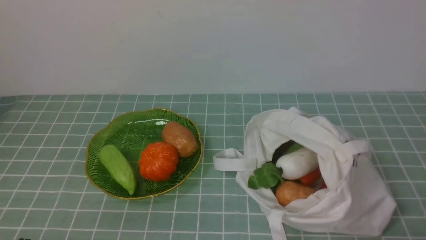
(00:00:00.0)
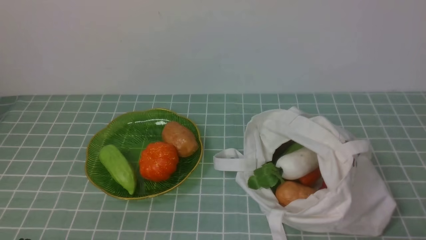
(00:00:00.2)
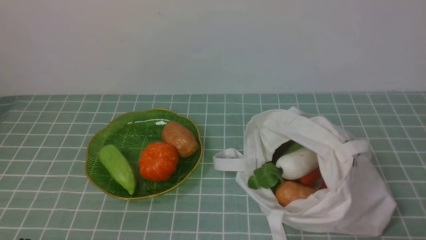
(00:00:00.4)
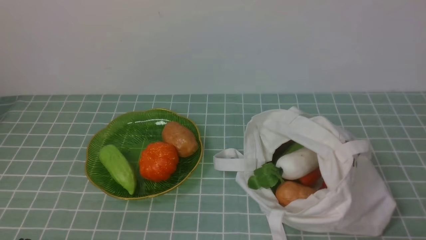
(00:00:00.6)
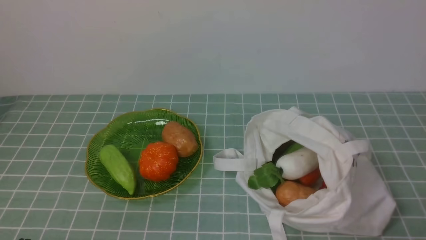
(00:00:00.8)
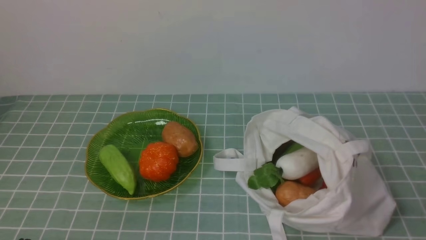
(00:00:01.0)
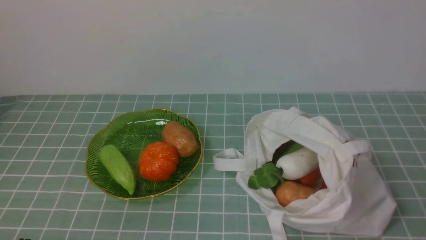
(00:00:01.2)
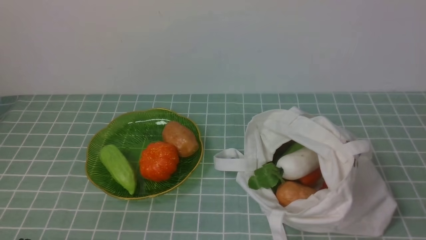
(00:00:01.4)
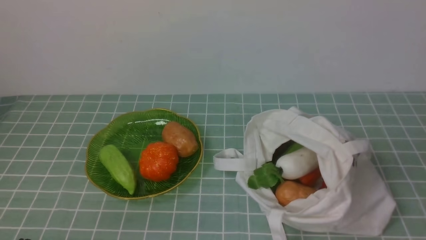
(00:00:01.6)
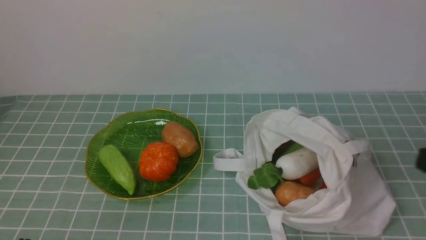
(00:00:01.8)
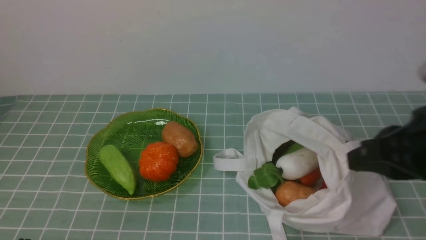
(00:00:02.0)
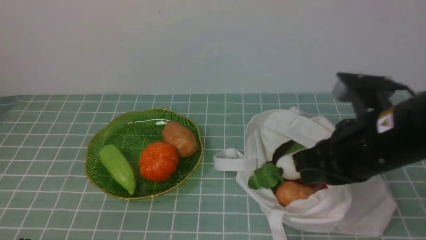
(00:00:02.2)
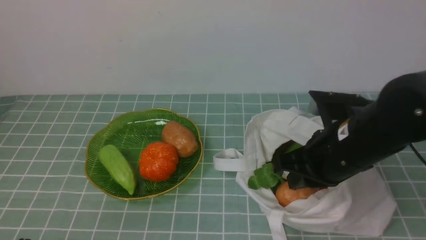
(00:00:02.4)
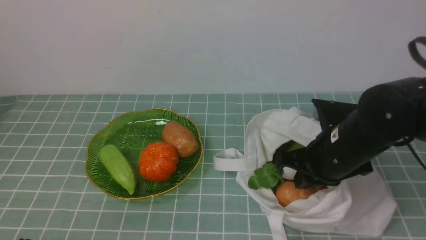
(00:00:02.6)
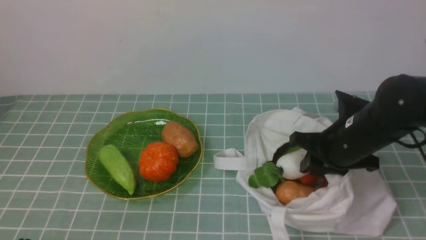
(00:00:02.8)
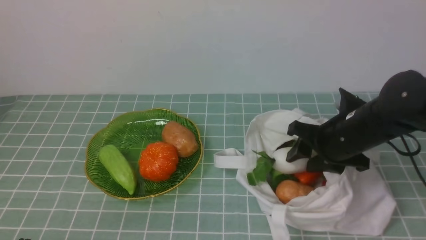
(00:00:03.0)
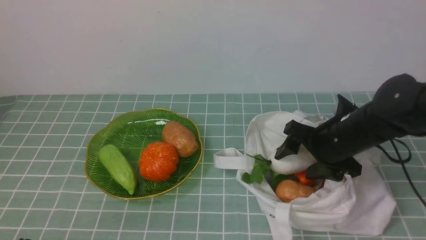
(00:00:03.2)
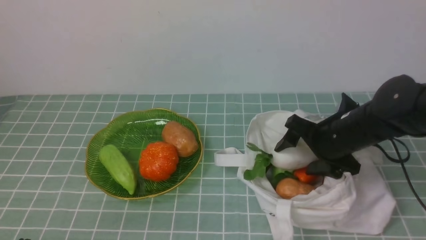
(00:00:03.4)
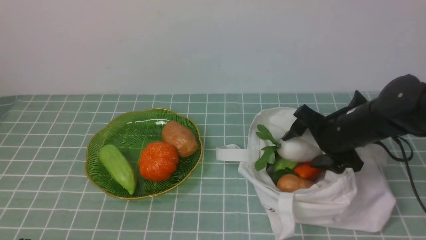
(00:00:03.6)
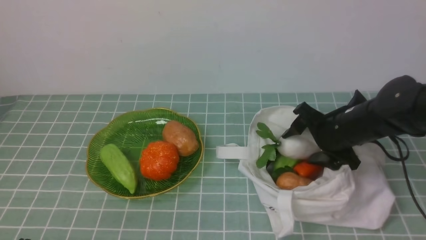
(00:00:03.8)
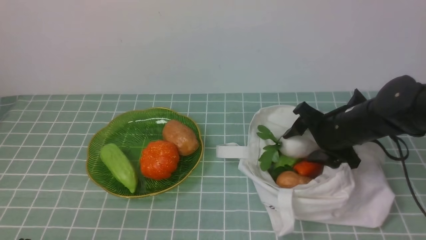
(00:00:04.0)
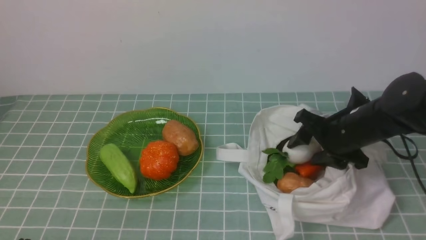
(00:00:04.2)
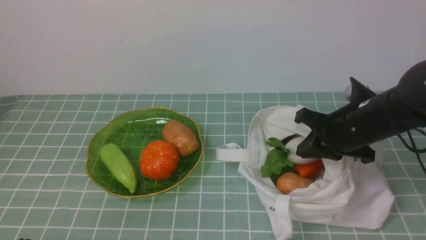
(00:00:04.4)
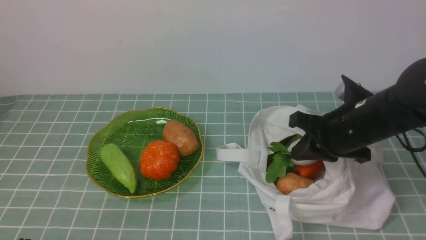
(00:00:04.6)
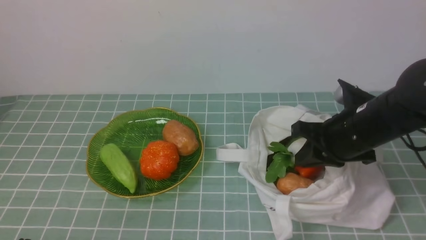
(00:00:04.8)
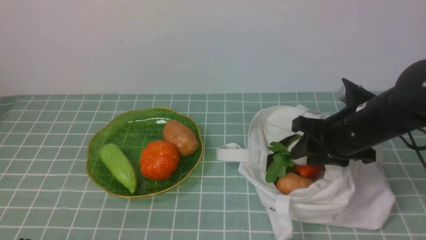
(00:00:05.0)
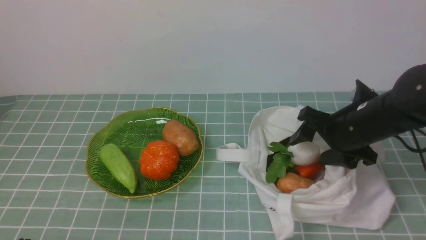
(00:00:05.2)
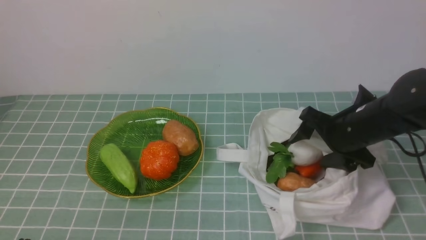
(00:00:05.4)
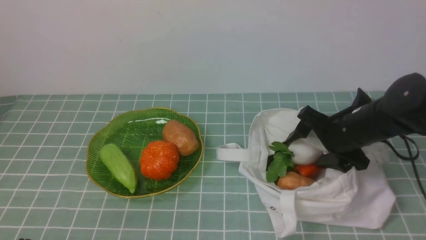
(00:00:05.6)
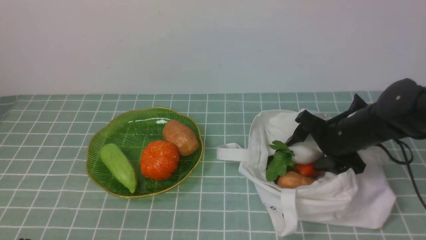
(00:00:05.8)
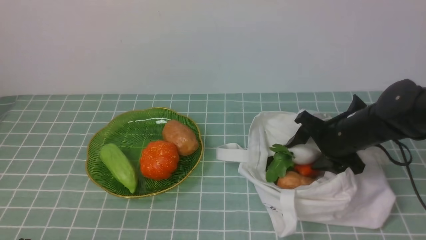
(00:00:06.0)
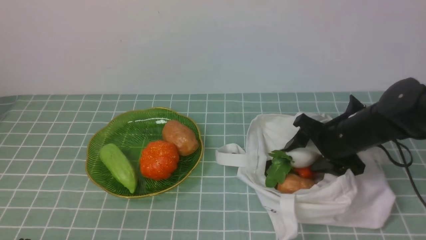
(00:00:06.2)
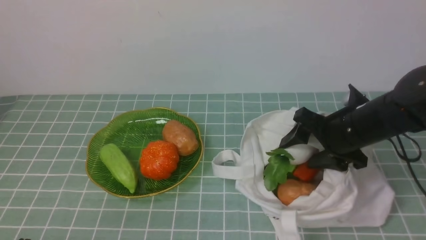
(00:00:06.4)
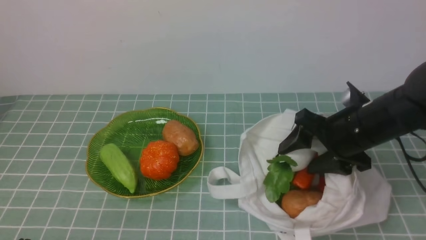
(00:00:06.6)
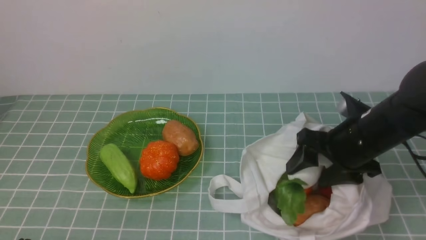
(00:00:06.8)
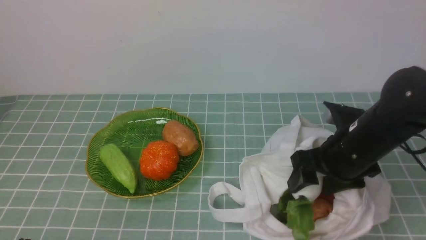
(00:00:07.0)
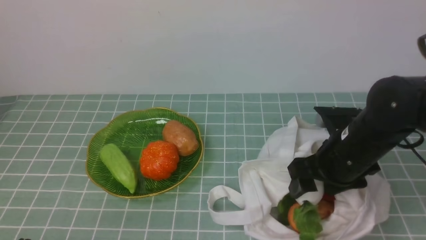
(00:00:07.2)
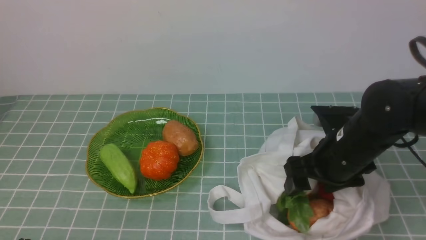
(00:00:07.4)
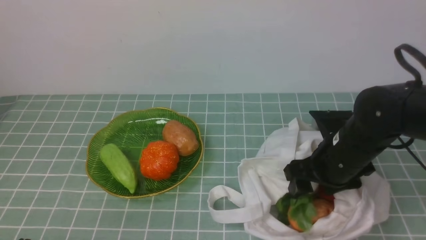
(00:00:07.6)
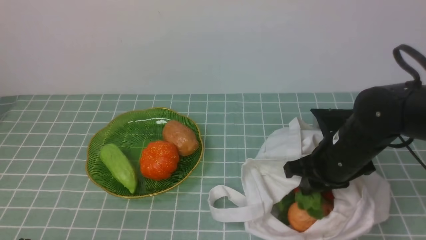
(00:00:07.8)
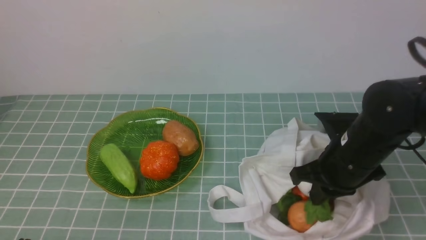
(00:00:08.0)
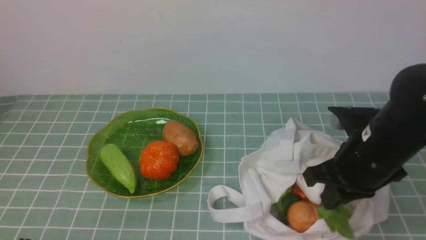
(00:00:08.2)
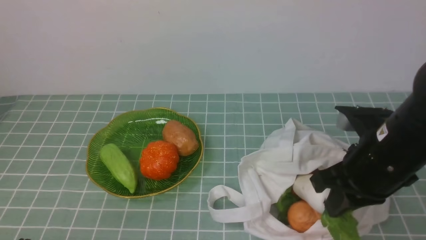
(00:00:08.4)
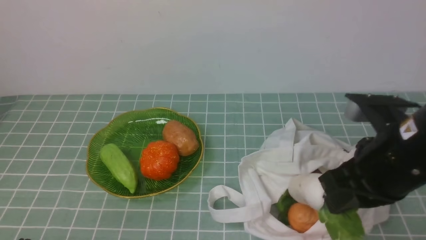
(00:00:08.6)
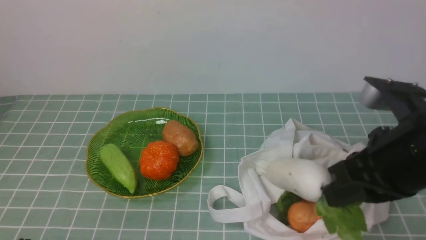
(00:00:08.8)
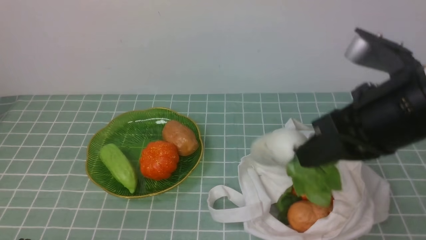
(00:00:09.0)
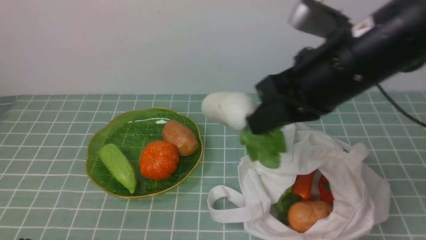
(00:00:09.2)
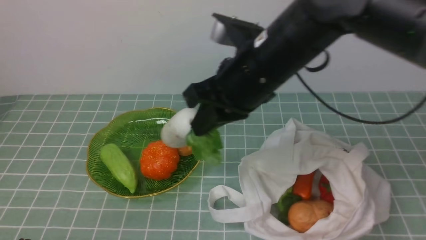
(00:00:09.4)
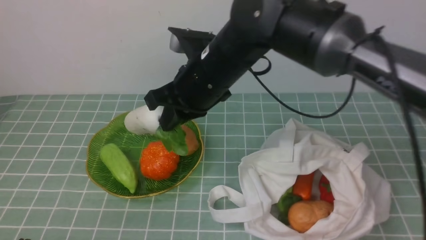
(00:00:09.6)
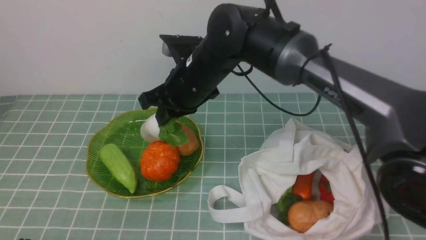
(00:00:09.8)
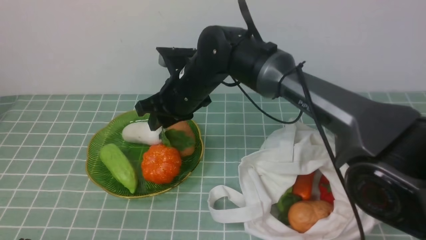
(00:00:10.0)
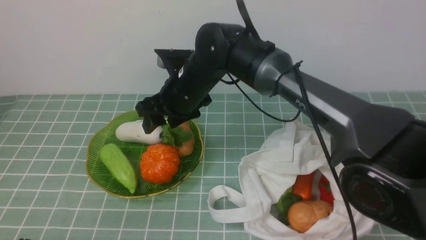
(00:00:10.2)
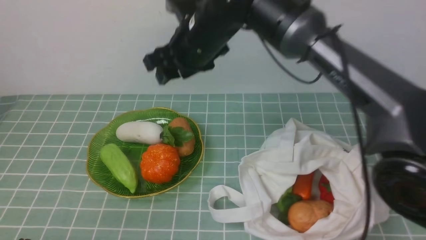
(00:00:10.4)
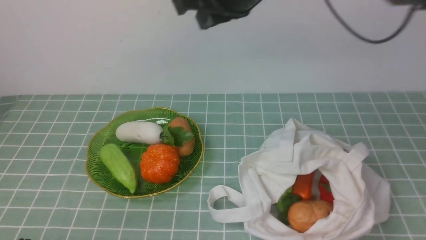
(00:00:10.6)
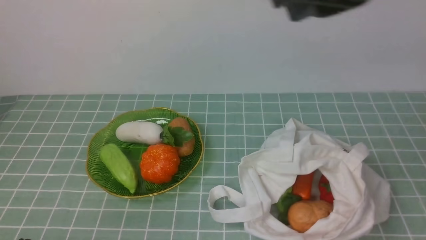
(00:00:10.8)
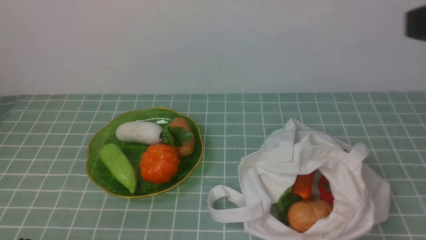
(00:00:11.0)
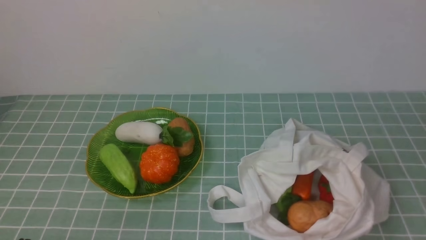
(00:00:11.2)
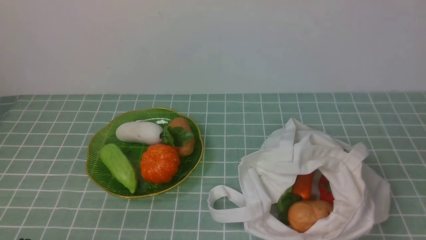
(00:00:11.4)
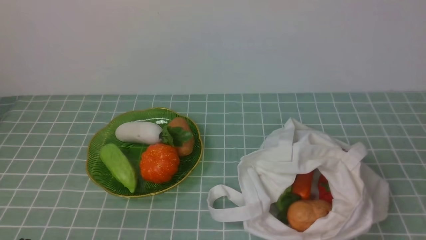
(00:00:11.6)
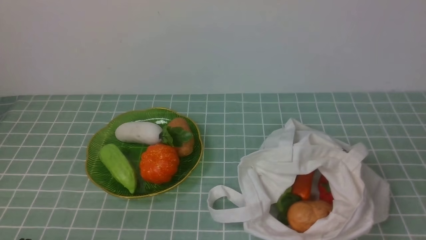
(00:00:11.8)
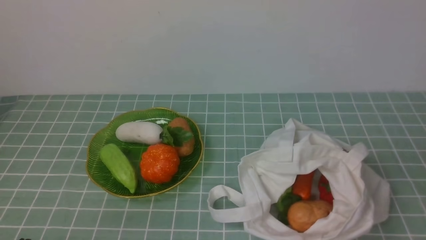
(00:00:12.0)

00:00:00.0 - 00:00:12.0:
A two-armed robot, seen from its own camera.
Task of the whole recording: take vegetables from cloth bag on blue coffee tablecloth place on plate.
Step, 00:00:00.0 - 00:00:06.8: Grasp the radish with right gripper.
Step, 00:00:07.0 - 00:00:10.2: Place the radish on the plate with right gripper.
00:00:01.6 - 00:00:03.0: The right gripper travels forward and downward by approximately 25 cm, and opens.
00:00:03.0 - 00:00:04.4: The right gripper closes up.
00:00:04.4 - 00:00:06.0: The right gripper changes place by some 5 cm, and opens.
00:00:06.0 - 00:00:07.6: The right gripper heads backward, covering about 5 cm.
00:00:07.6 - 00:00:09.0: The right gripper heads upward and backward, covering some 20 cm, and closes.
00:00:09.0 - 00:00:10.4: The right gripper shifts roughly 25 cm forward and to the left, and opens.
00:00:10.4 - 00:00:12.0: The right gripper is displaced backward and to the right by some 50 cm, and closes its fingers.

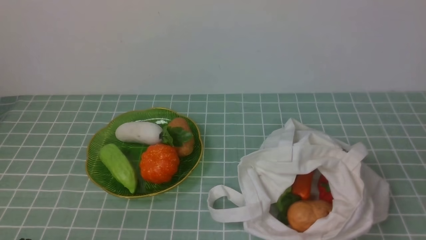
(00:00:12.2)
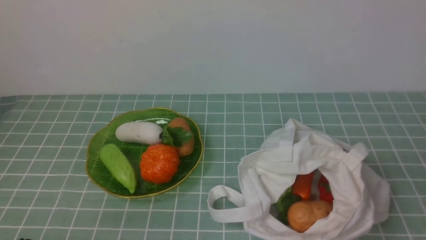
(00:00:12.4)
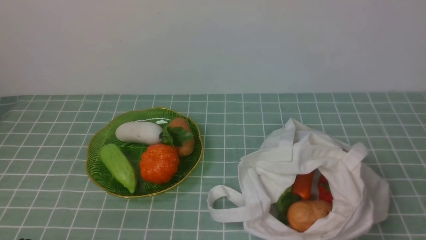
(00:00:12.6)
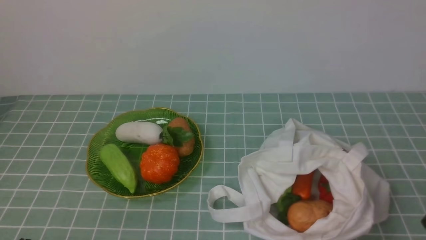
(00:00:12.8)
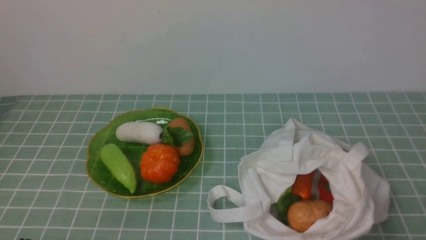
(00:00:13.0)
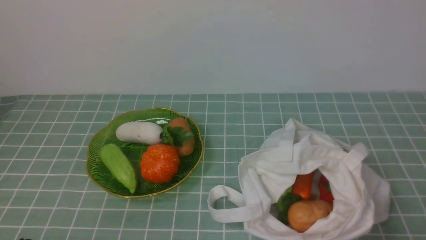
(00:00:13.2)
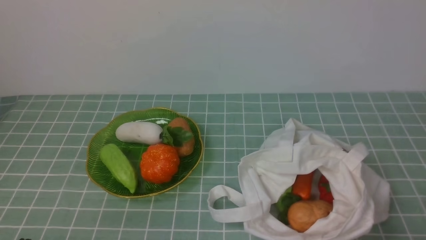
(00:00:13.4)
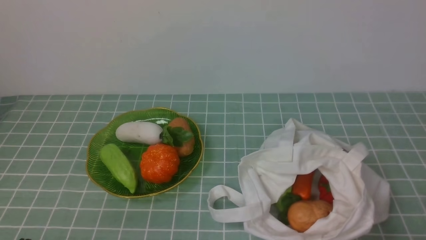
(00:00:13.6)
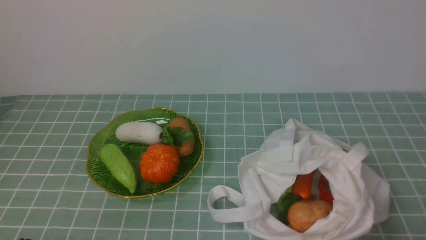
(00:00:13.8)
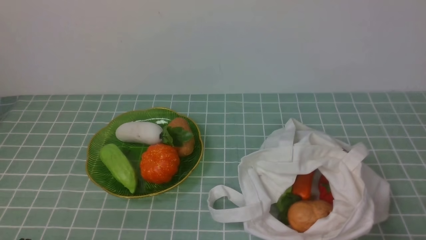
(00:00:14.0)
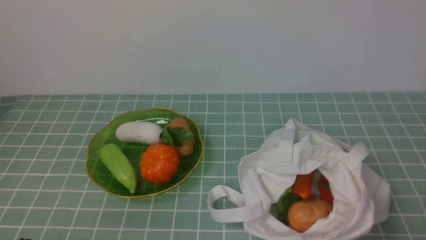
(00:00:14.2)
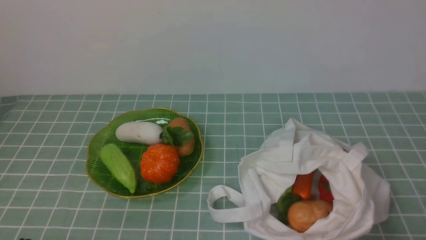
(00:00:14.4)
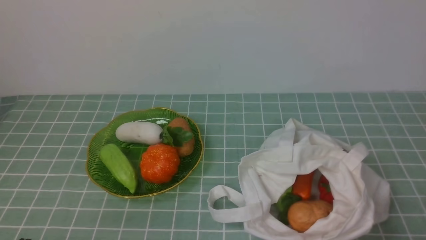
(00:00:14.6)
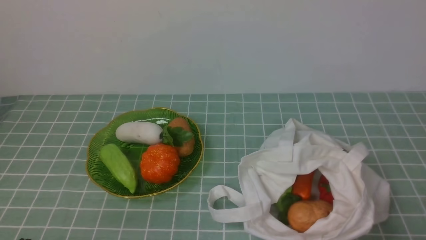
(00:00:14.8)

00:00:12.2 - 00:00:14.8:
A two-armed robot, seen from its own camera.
Task of the whole recording: take vegetables from cloth bag on blue coffee tablecloth place on plate.
00:00:13.4 - 00:00:14.8: Neither gripper changes place.
